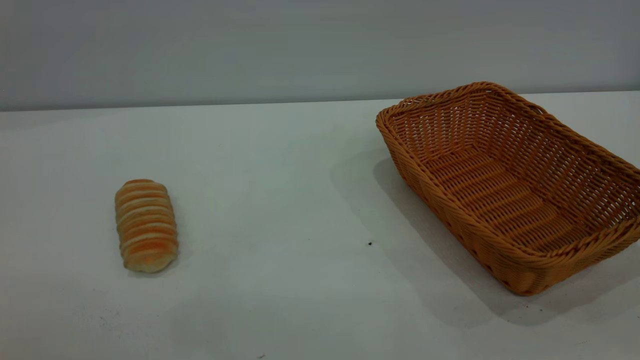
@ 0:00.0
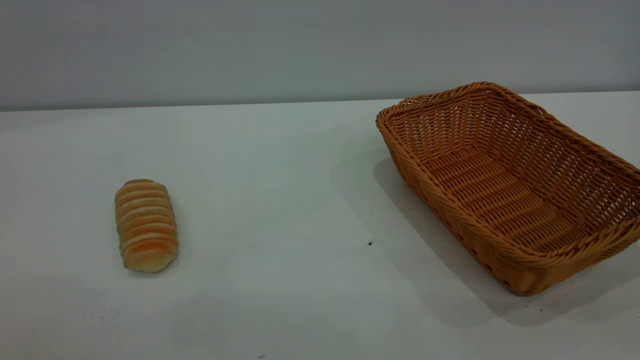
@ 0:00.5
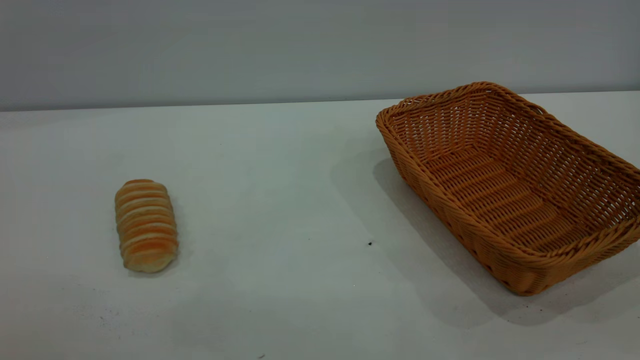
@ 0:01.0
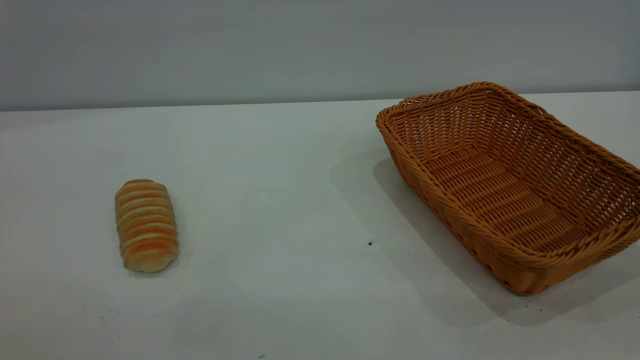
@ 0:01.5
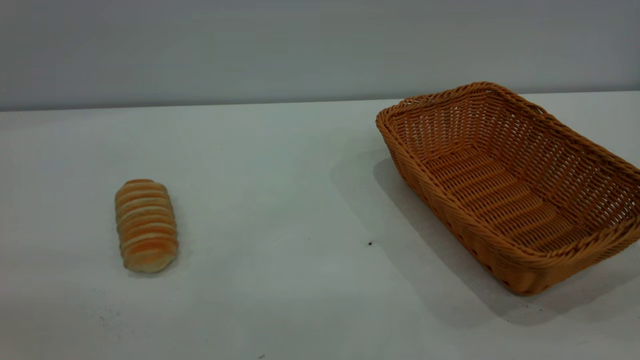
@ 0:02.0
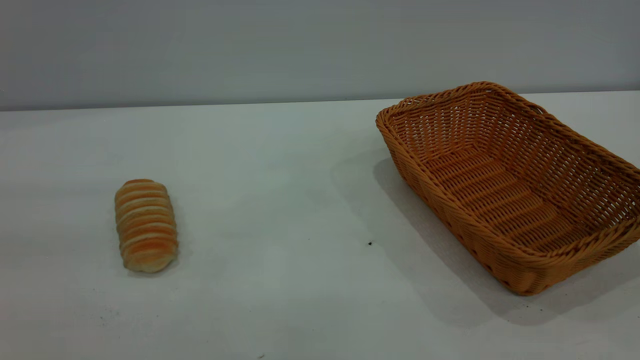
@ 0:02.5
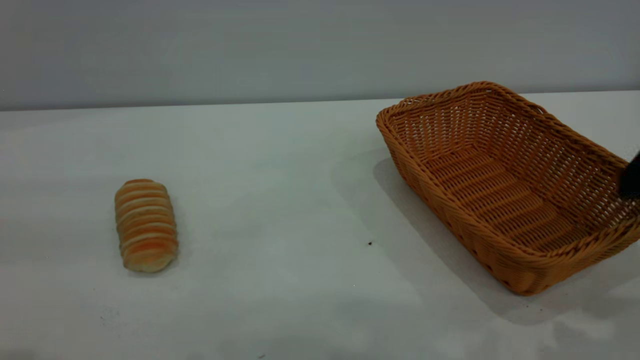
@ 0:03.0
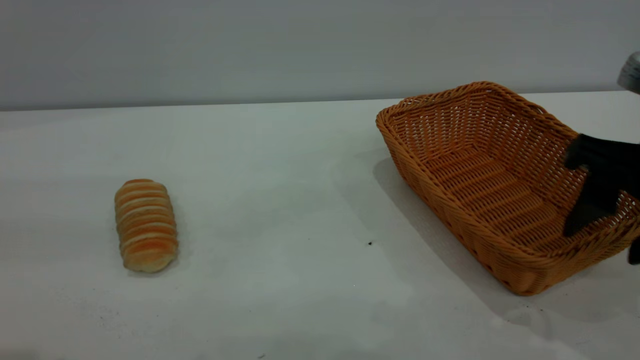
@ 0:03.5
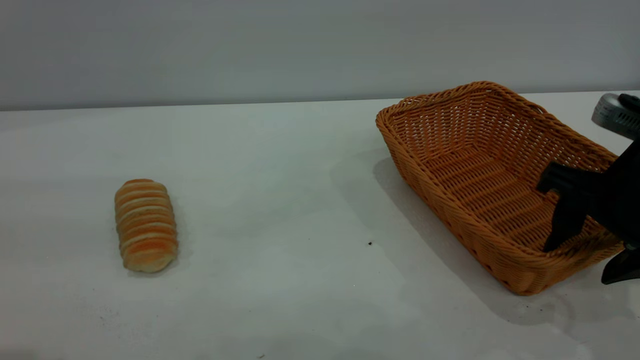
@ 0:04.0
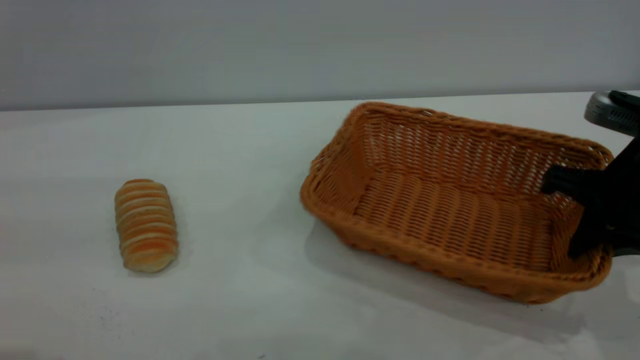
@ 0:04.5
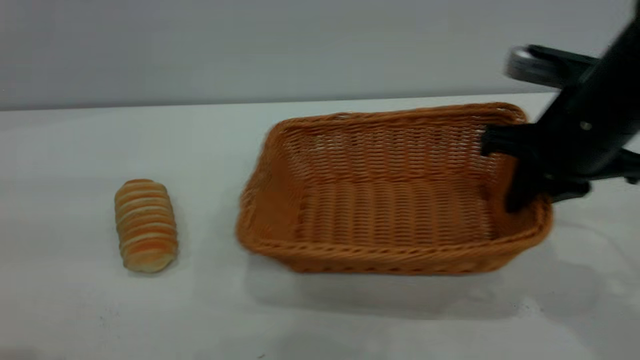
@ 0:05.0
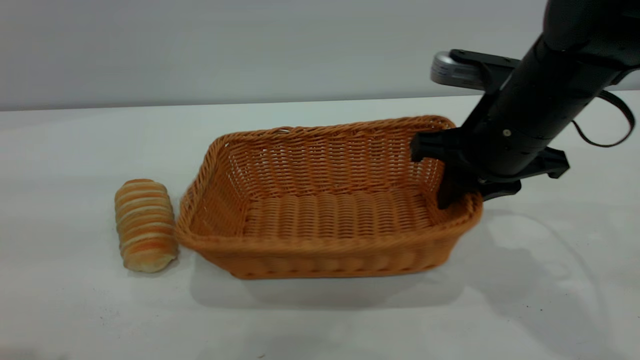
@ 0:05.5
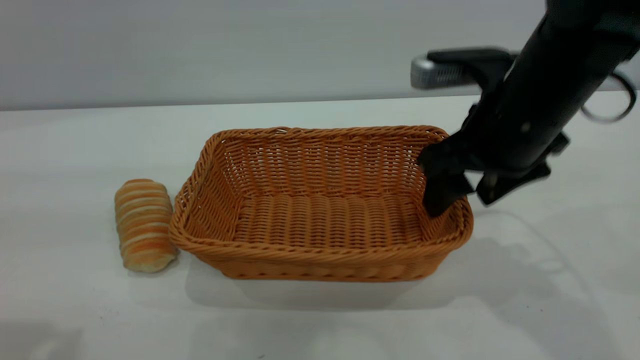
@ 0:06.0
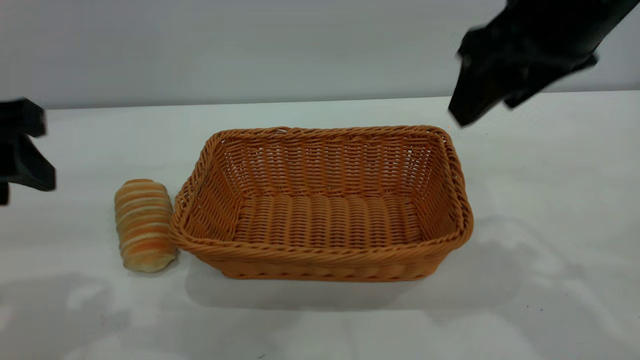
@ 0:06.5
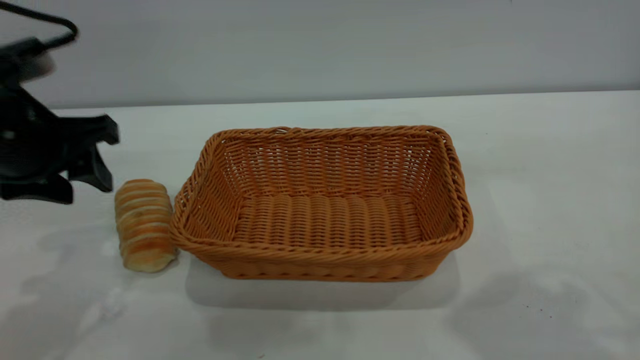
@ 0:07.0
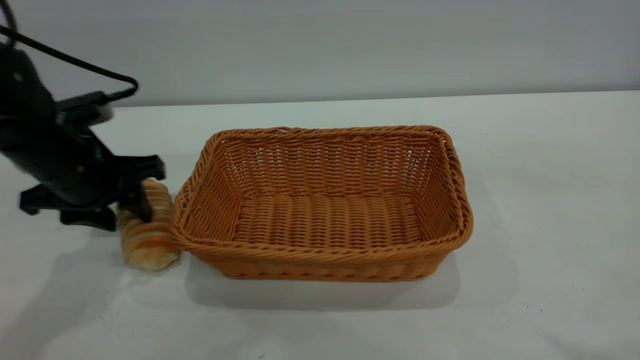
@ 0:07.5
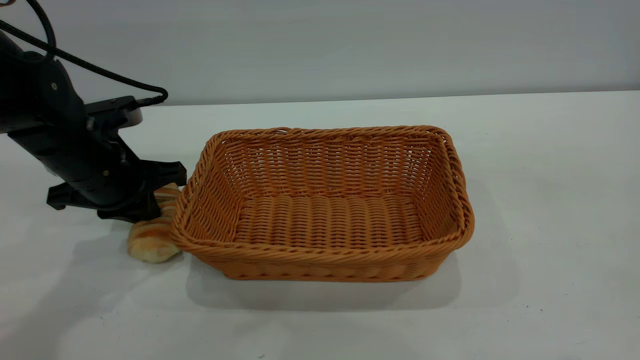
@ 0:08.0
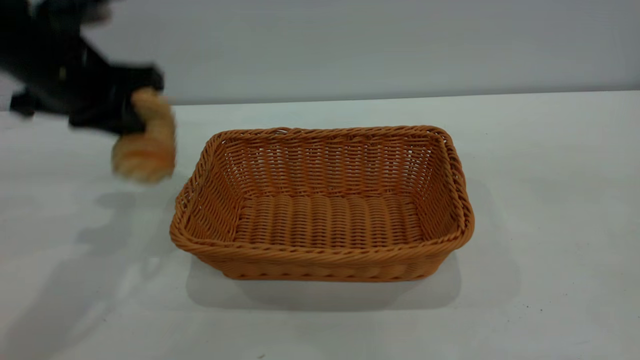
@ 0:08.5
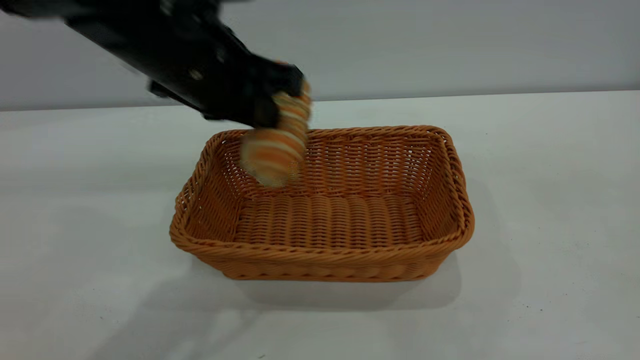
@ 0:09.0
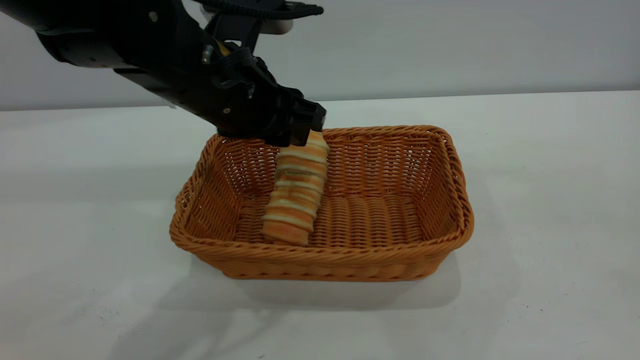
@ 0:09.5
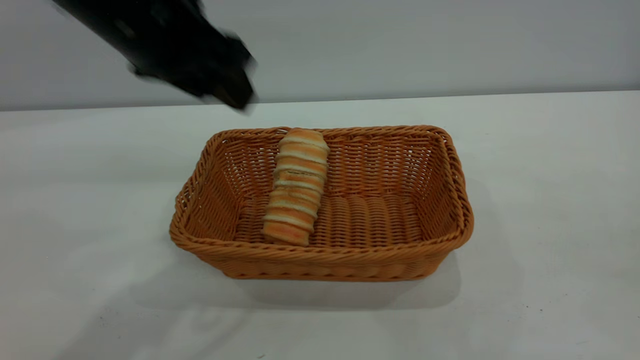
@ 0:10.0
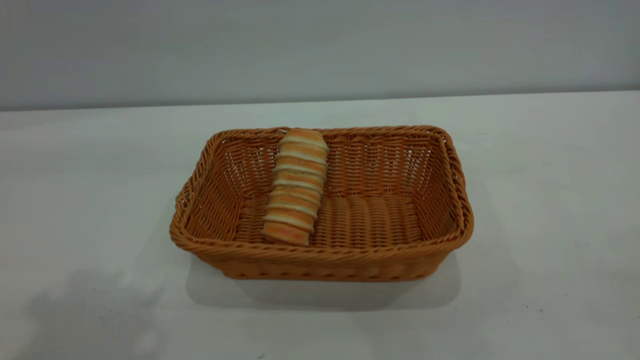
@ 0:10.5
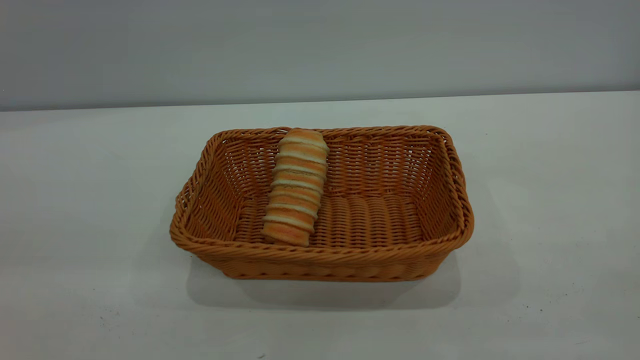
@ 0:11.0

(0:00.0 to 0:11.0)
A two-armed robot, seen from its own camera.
Task of the whole recording: One hand grasps the yellow basket and places it in the middle of the table, while the other hand picks up the long bread and puts it into the yellow basket.
Step, 0:00.0 - 0:06.0: Move the basket to the center of view.
Step, 0:08.5 - 0:09.5: place the bread into the basket.
0:02.0 - 0:03.5: The right gripper moves forward and downward, approximately 25 cm.
0:03.5 - 0:05.5: The right gripper is displaced to the left and forward by about 15 cm, and closes.
0:05.5 - 0:07.5: The right gripper is displaced upward and backward by about 35 cm, and opens its fingers, while the left gripper shifts some 30 cm forward and downward.
0:07.5 - 0:09.0: The left gripper moves to the right and upward, approximately 20 cm, and closes its fingers.
0:09.0 - 0:11.0: The right gripper travels downward, backward and to the right by about 20 cm. Meanwhile the left gripper moves backward, upward and to the left, about 35 cm, and opens up.

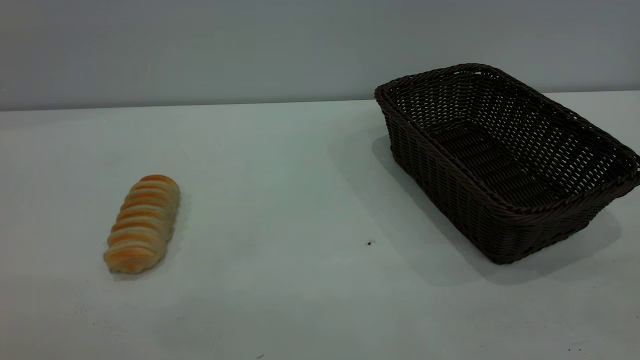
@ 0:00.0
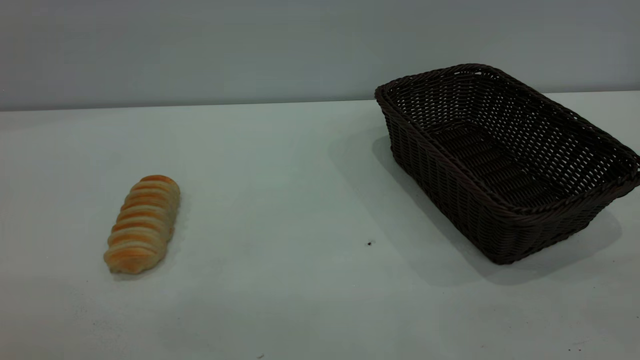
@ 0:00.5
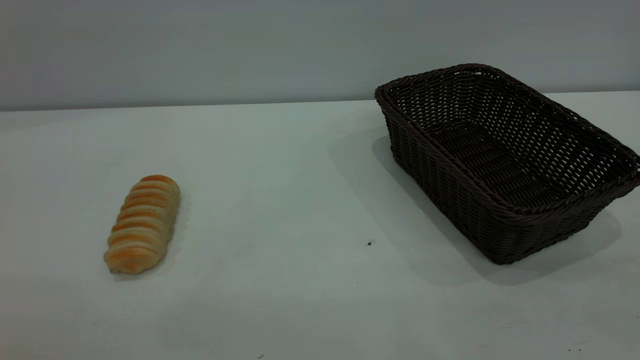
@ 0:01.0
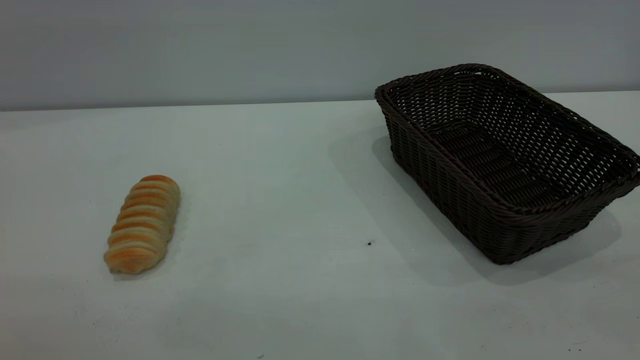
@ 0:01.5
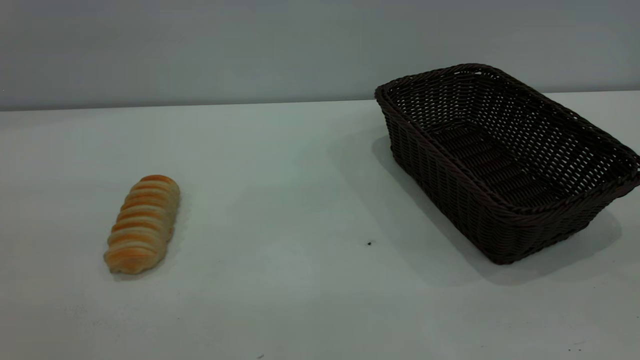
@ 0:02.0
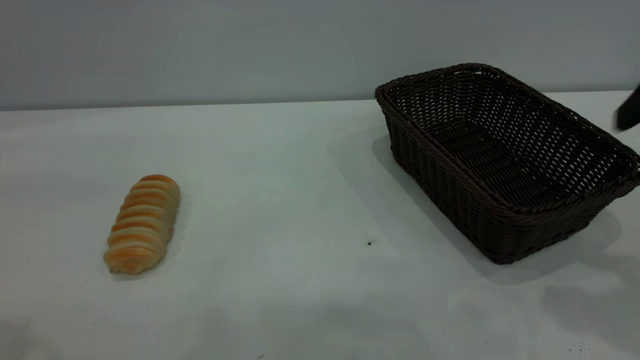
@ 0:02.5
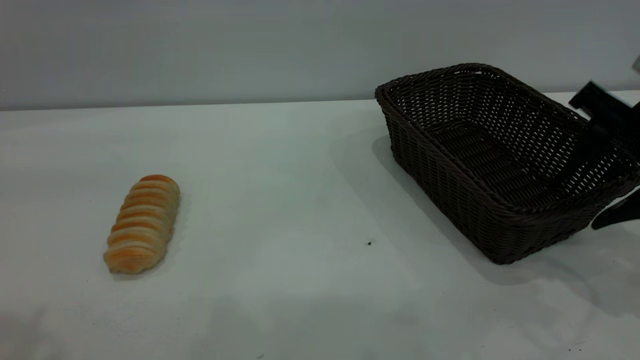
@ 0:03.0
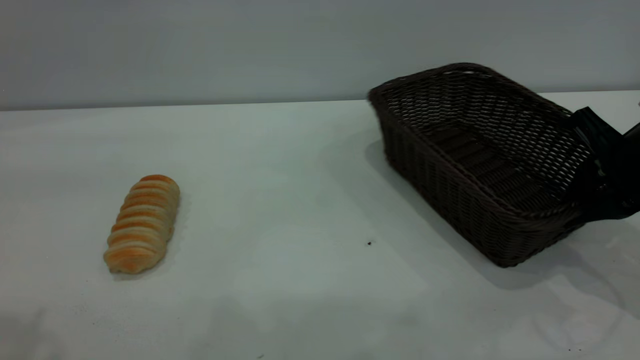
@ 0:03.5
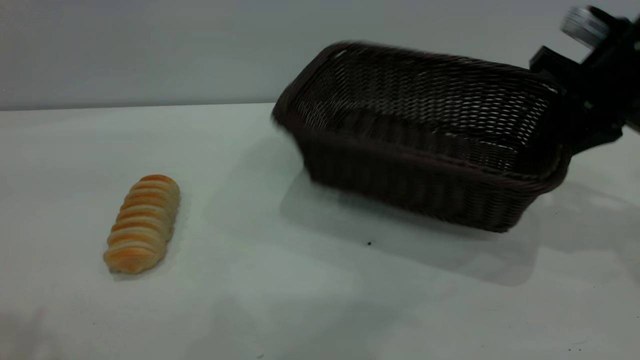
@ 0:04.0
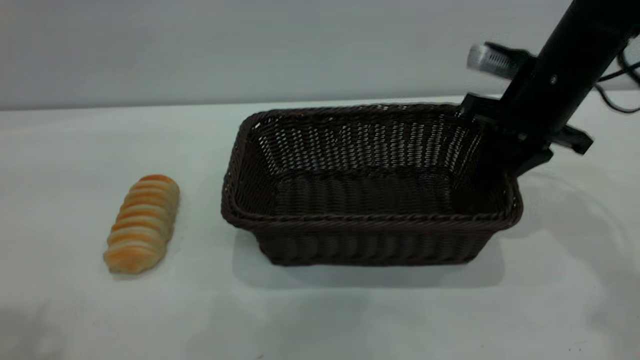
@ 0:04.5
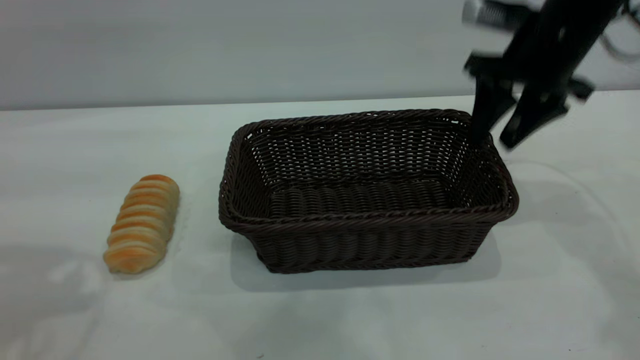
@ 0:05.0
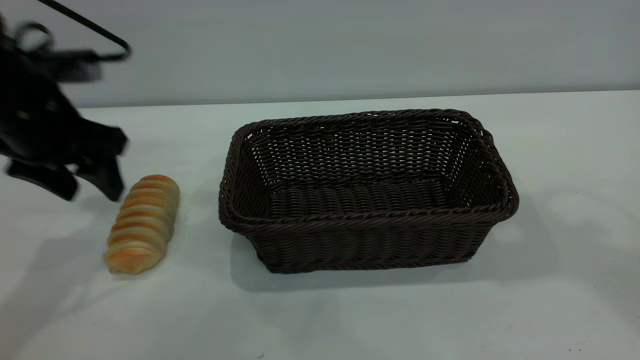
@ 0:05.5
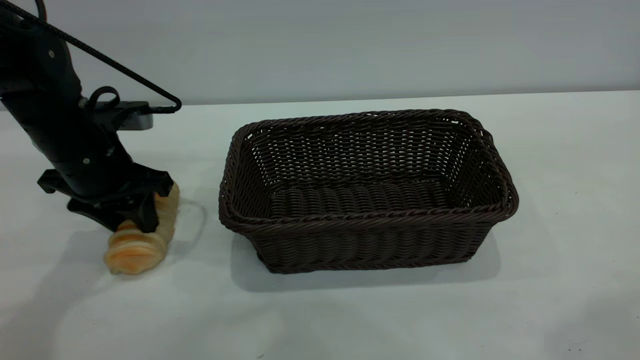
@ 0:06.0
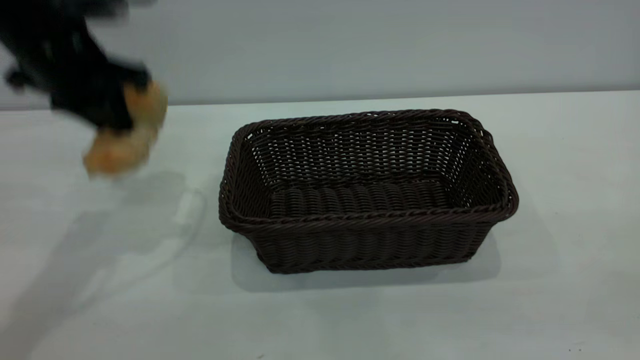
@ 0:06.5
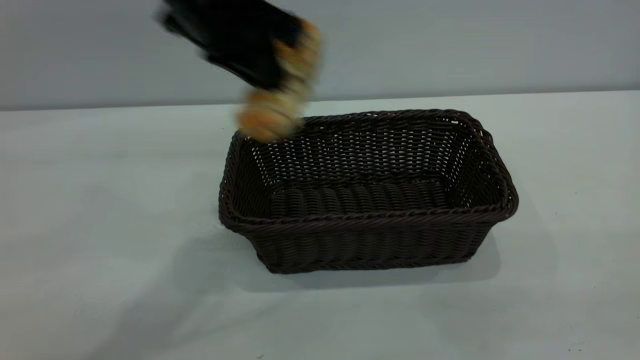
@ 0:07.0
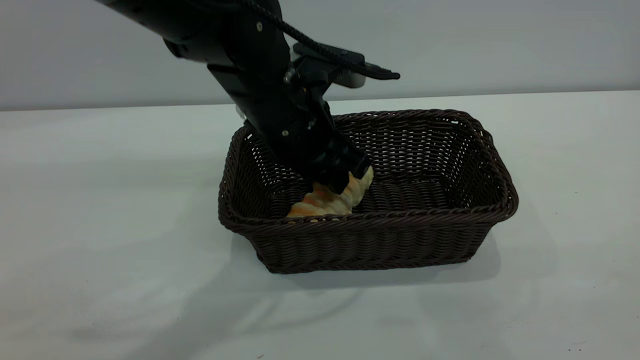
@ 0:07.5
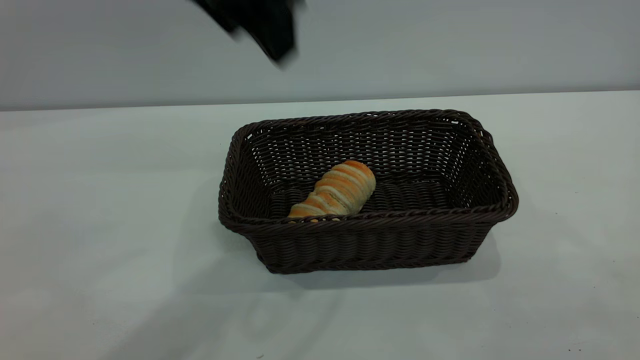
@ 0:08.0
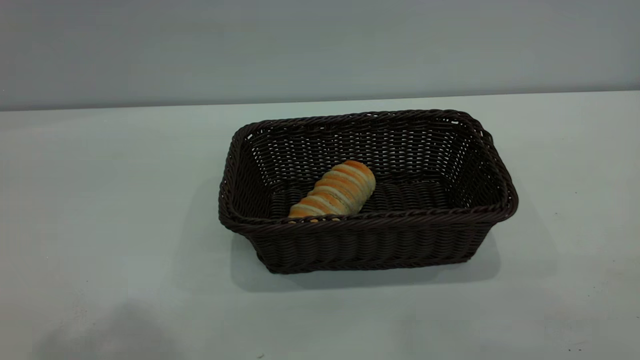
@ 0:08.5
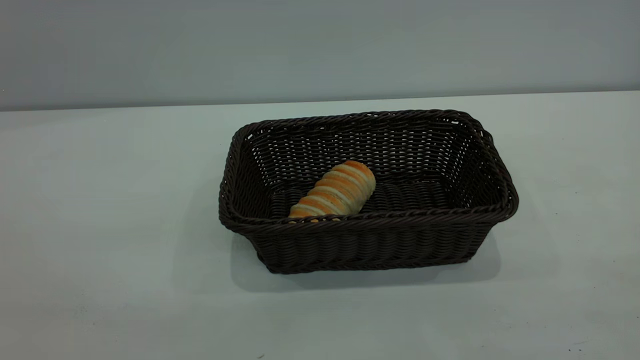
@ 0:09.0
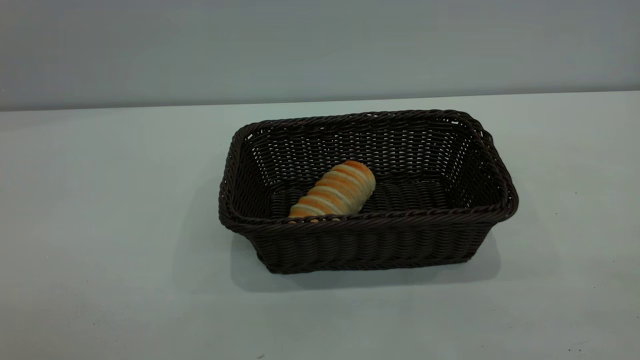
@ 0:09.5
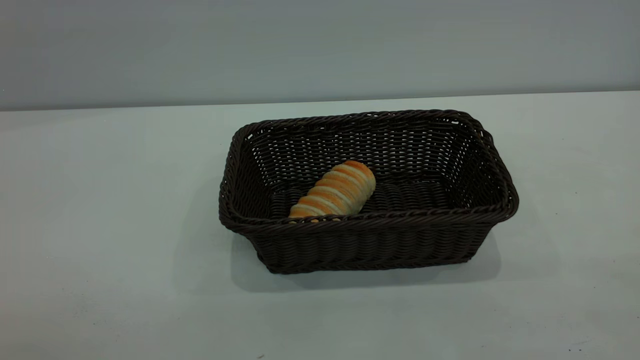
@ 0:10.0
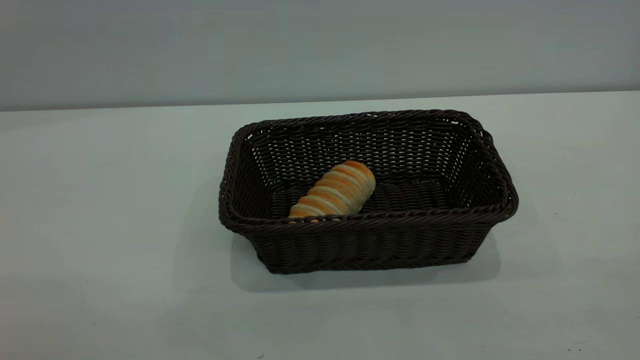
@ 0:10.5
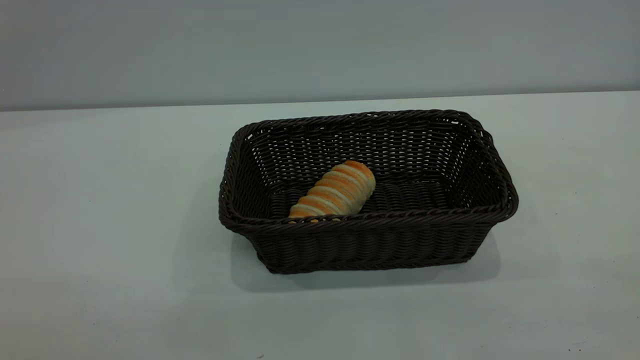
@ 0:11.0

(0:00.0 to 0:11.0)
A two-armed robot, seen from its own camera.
Task of the whole recording: One hand grasps the black basket and places it in the middle of the table, while the other hand picks up the long bread and puts it into the black basket.
Step, 0:00.0 - 0:05.0: Move the basket to the center of view.
Step, 0:07.0 - 0:07.5: place the bread into the basket.
0:02.0 - 0:03.5: The right gripper heads downward and forward, covering some 30 cm, and closes.
0:03.5 - 0:05.5: The left gripper goes some 30 cm downward and forward. Meanwhile the right gripper swings up and down, approximately 30 cm each way, with 2 reversals, and opens its fingers.
0:05.5 - 0:07.5: The left gripper heads to the right, covering about 25 cm, and closes and opens again, while the right gripper heads backward, covering roughly 30 cm.
0:07.5 - 0:09.0: The left gripper travels backward, to the left and upward by roughly 40 cm.
